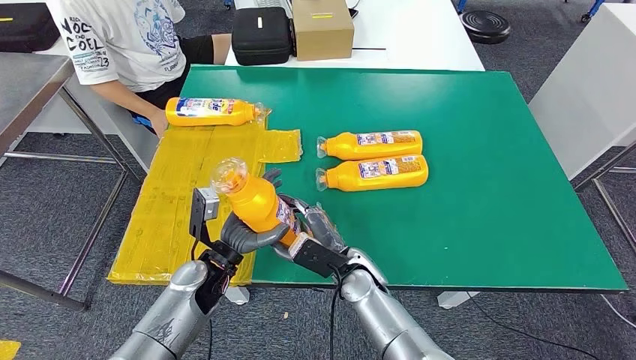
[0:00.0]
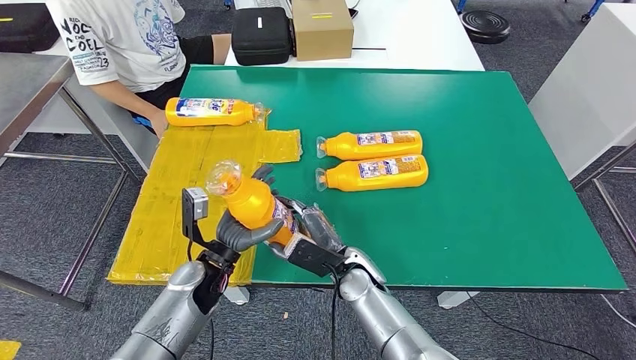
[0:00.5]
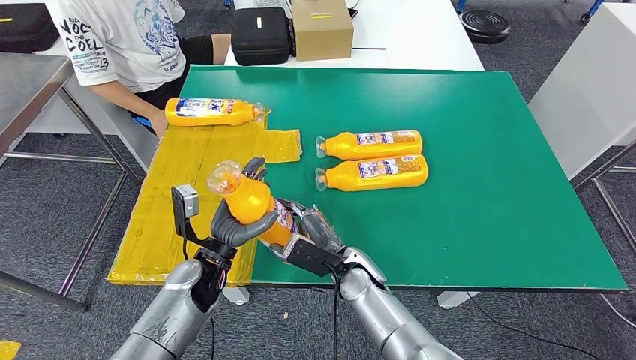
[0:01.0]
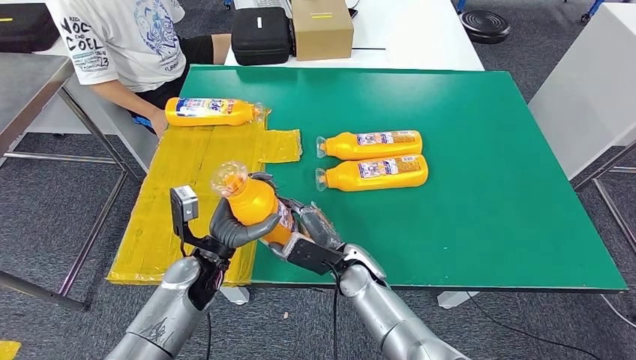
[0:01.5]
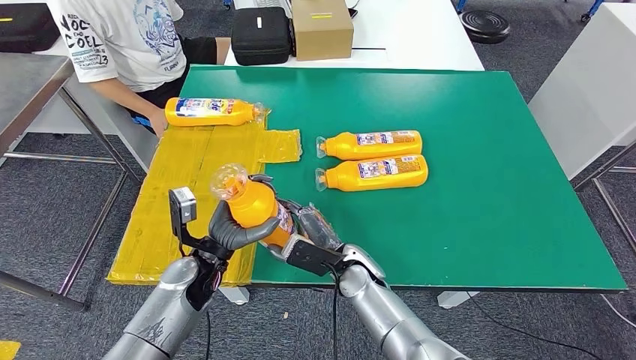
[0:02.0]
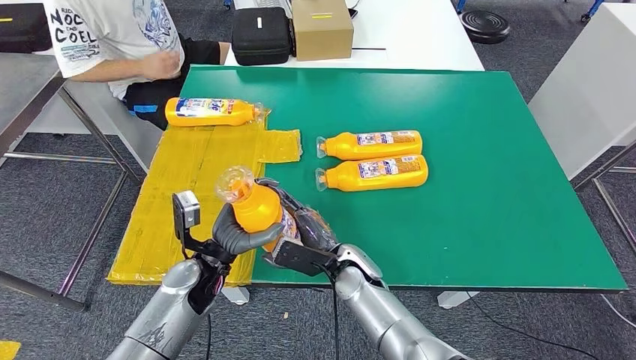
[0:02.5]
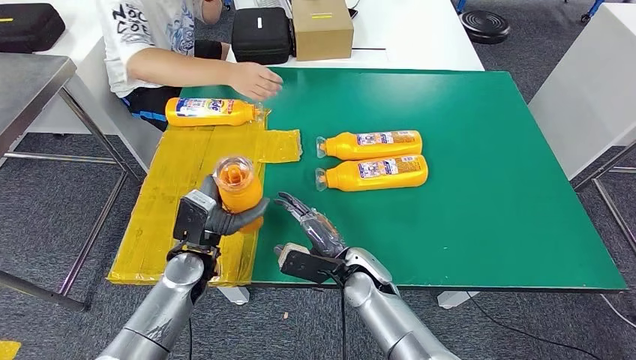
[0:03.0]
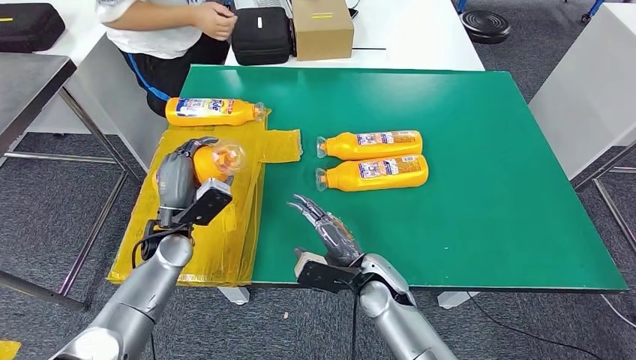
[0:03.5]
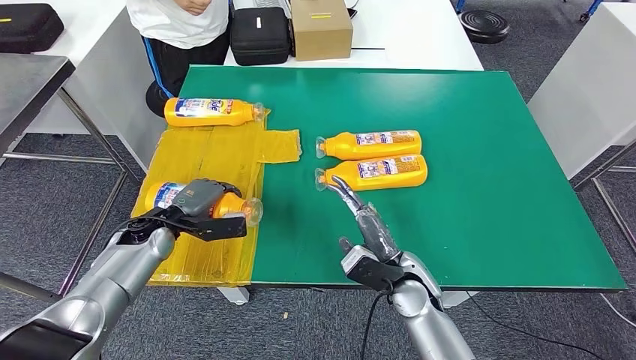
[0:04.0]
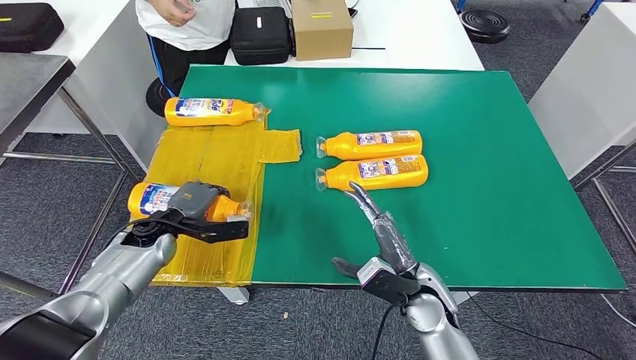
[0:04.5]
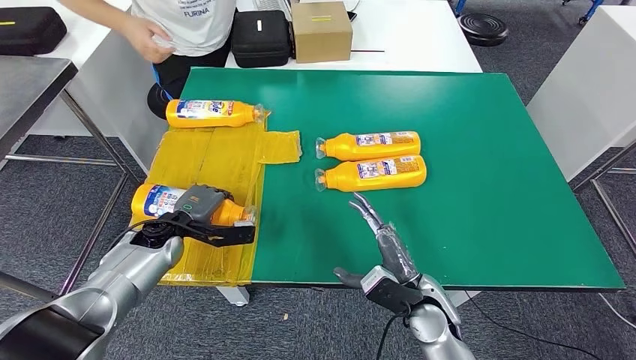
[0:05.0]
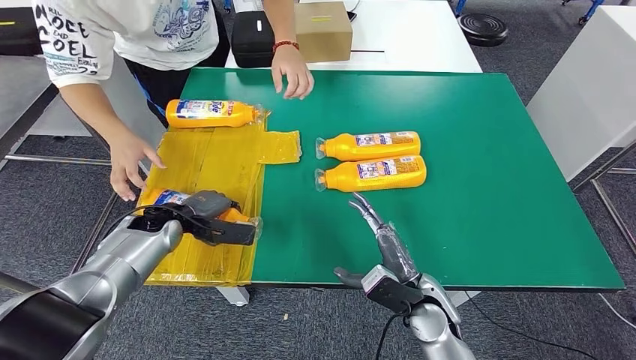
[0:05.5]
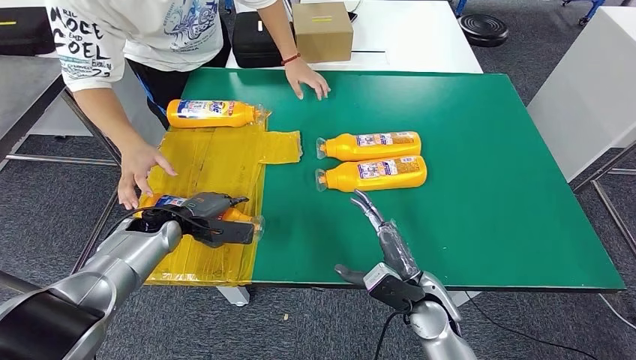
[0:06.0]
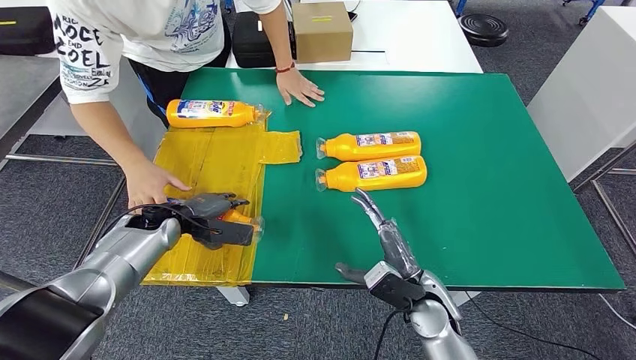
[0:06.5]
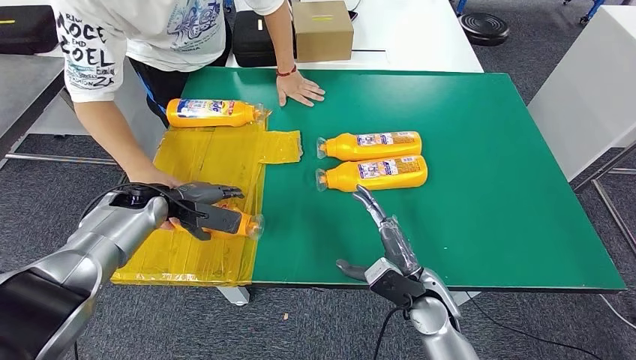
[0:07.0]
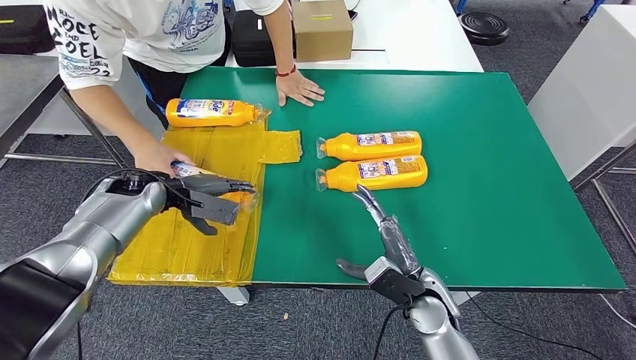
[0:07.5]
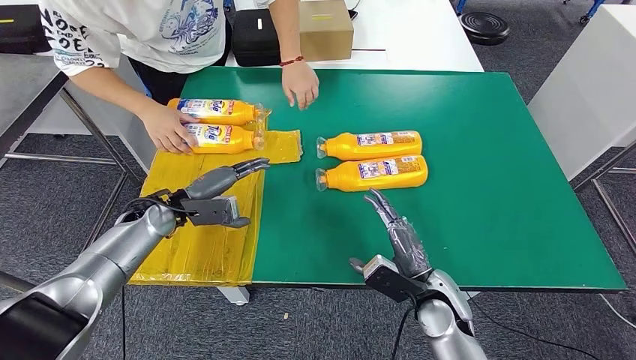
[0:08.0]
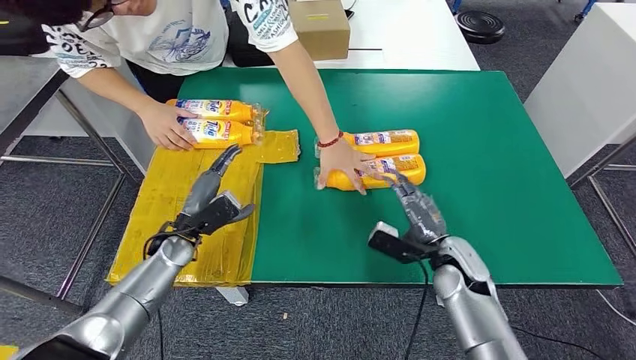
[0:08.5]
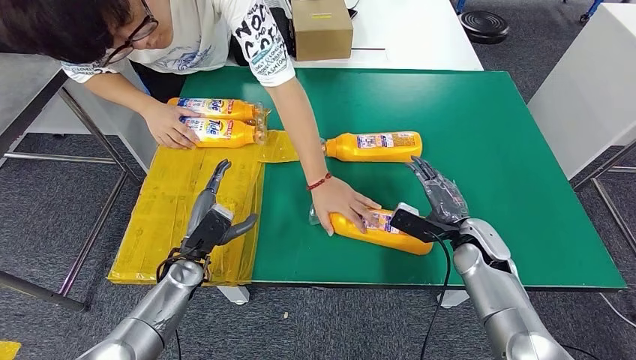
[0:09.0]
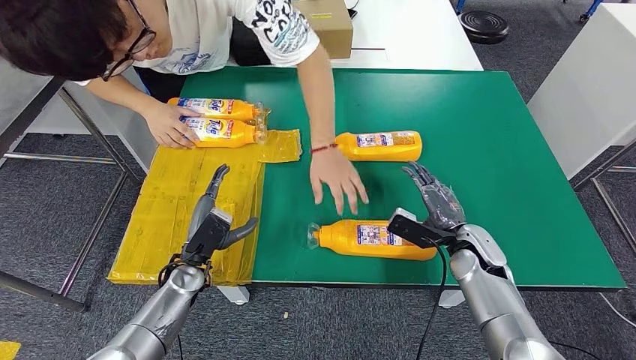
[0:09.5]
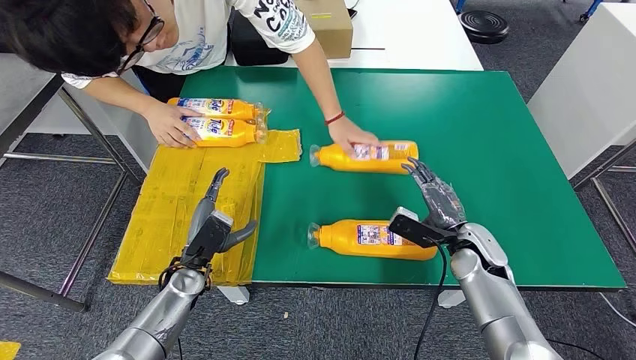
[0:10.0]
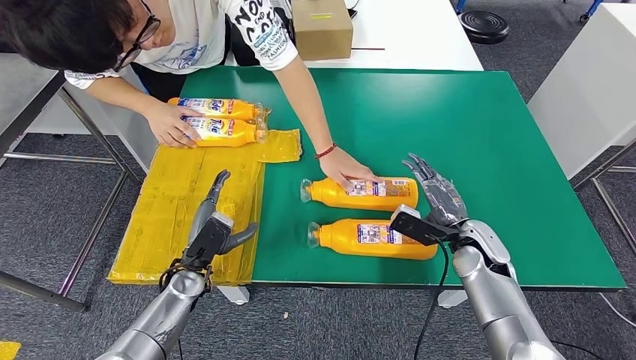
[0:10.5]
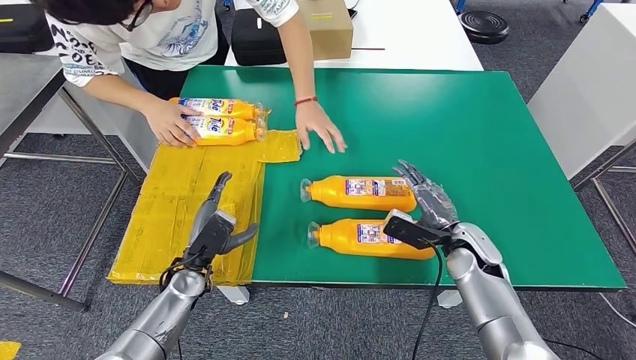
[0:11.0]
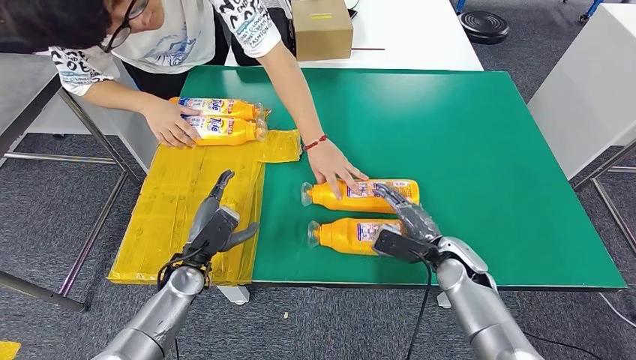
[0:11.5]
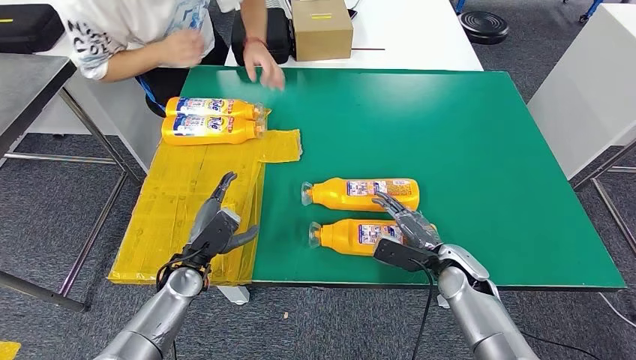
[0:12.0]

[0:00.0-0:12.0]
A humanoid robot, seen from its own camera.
Step, 0:00.0 to 0:07.0: Flip the fast-moving consumer goods bottle to the front side.
0:00.0 to 0:02.0: The hands make only small movements.

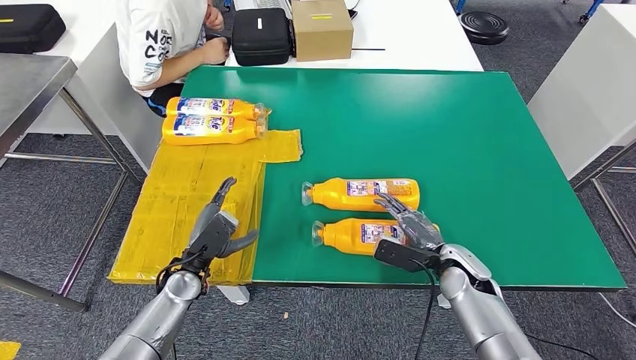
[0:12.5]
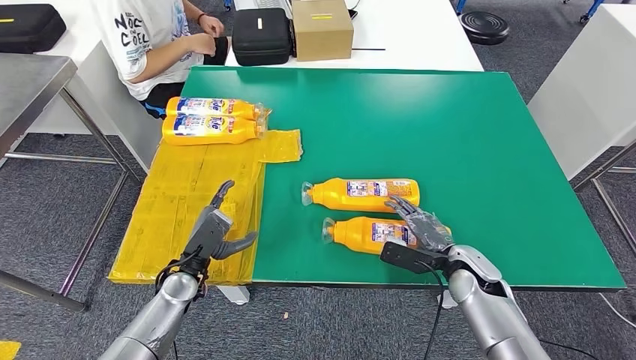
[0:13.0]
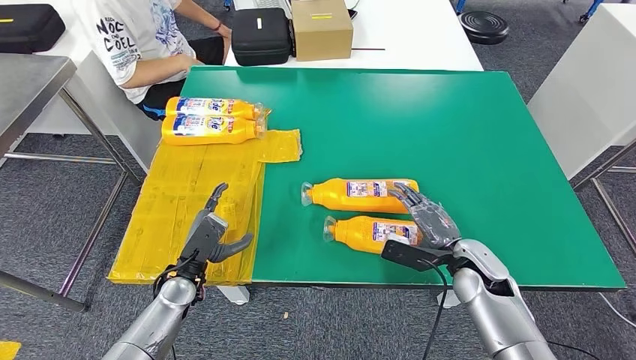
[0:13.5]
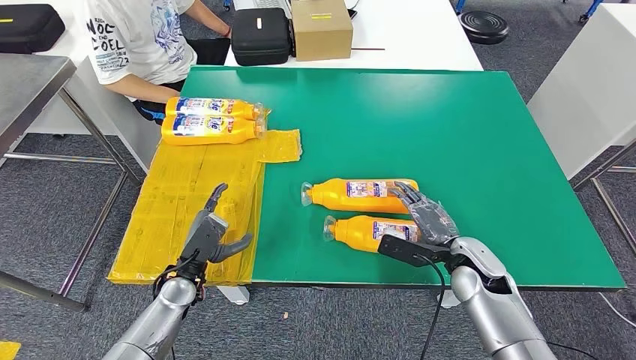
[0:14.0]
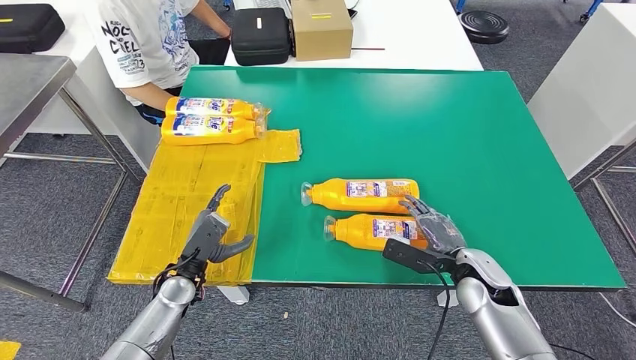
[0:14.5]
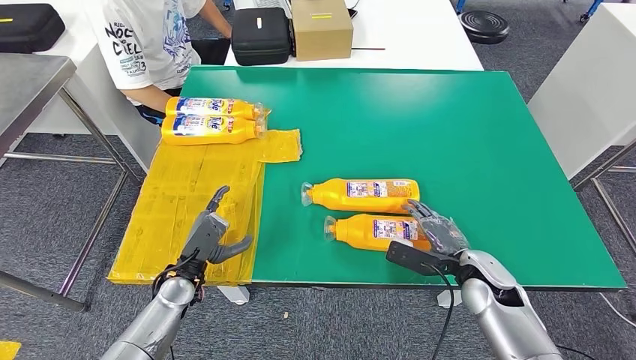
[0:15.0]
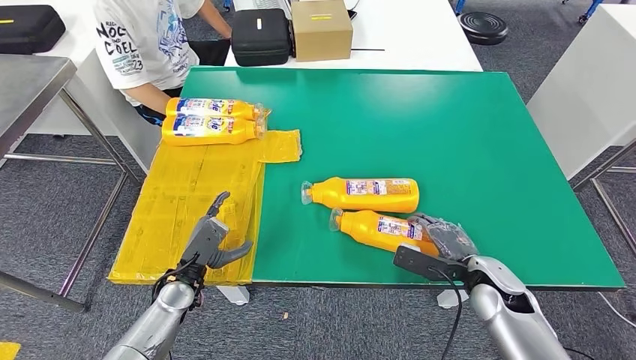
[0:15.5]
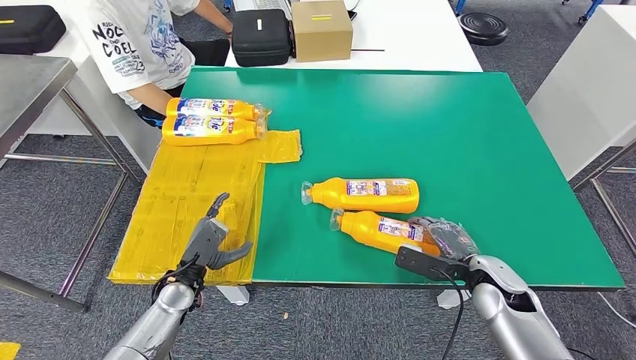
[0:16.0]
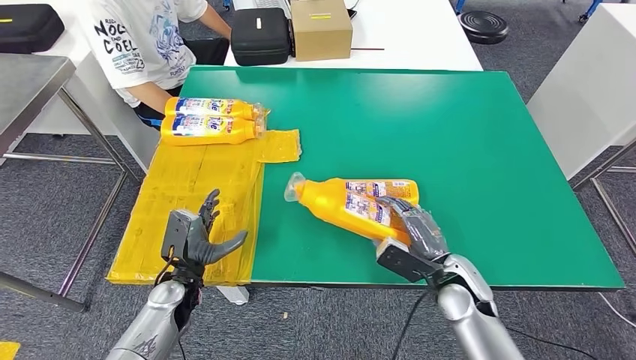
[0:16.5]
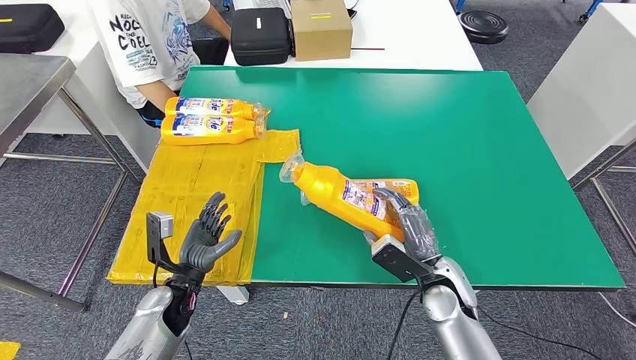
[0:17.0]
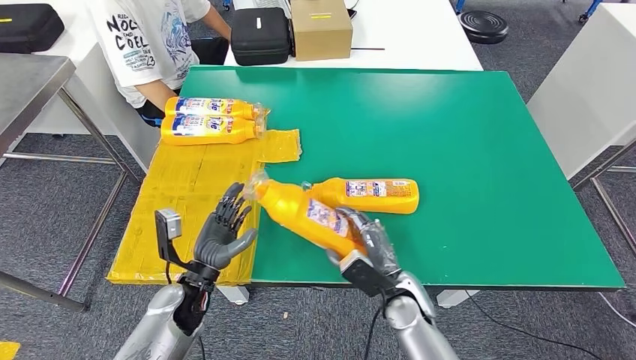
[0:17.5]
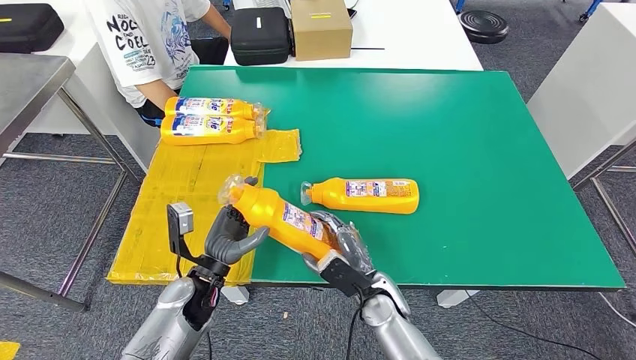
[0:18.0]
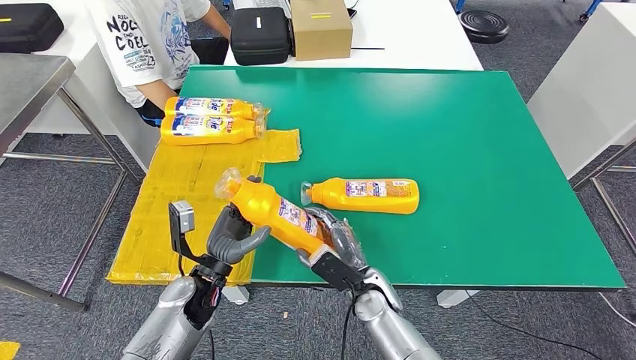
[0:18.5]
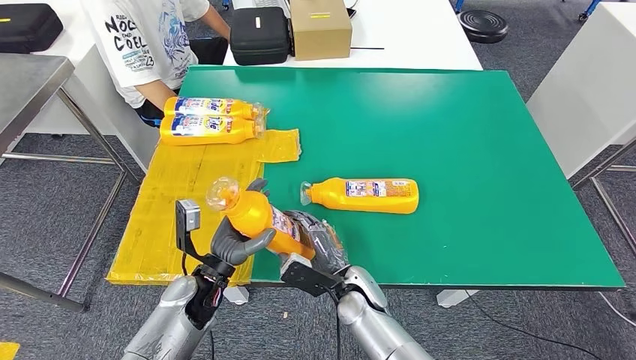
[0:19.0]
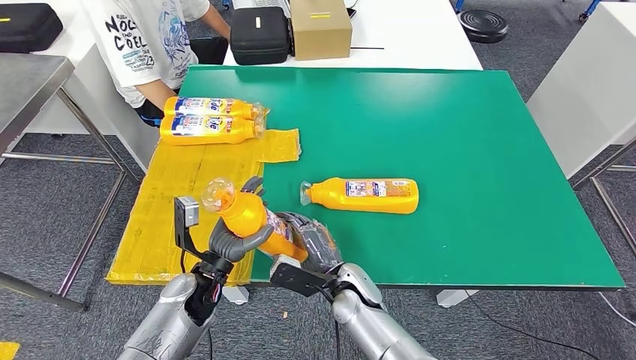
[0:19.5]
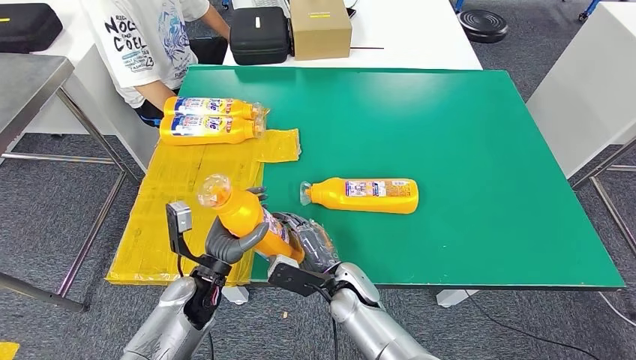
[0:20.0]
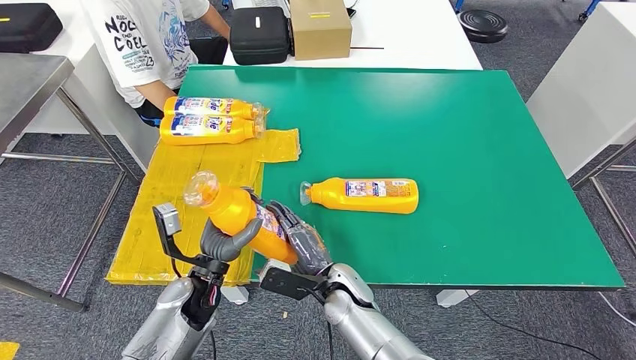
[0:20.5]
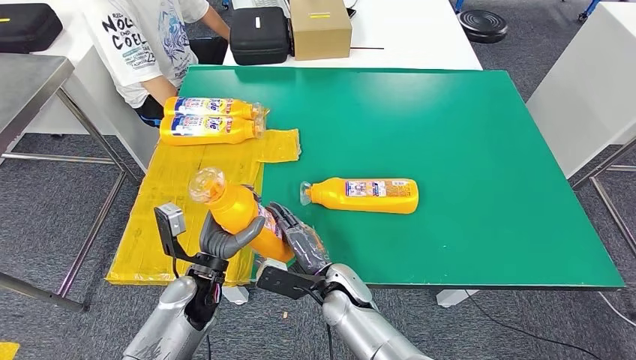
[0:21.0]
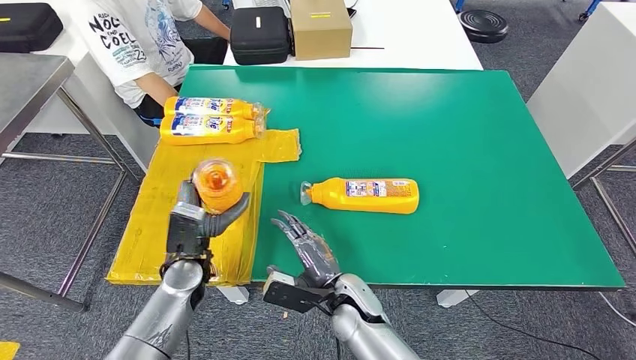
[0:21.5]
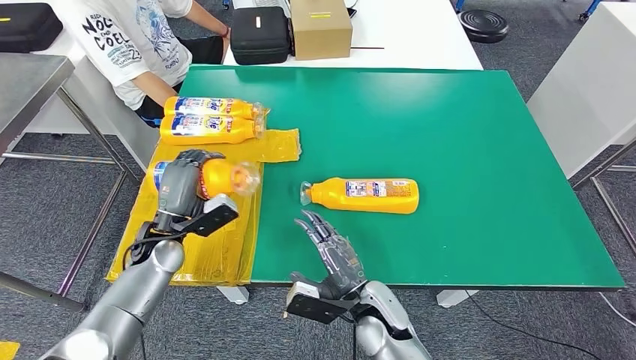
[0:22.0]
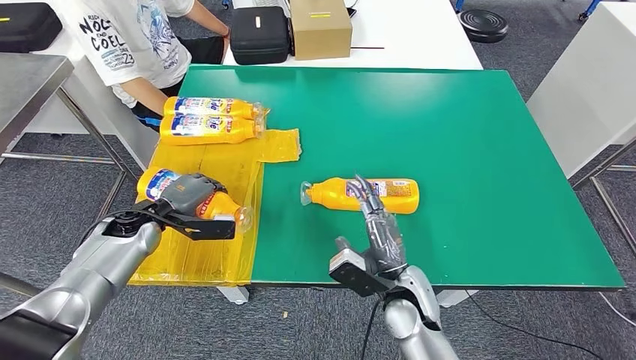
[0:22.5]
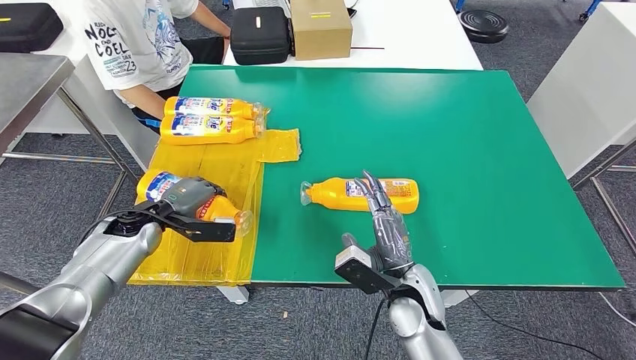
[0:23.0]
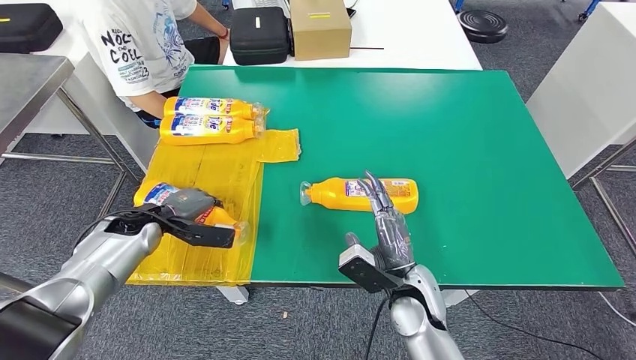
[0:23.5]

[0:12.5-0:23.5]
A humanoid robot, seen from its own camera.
Step, 0:14.5 to 0:16.5: Pick up the fast-moving consumer goods bottle from the table.
0:12.5 to 0:14.5: The hands stay close to where they were, moving slightly.
0:14.5 to 0:16.0: The hands stay close to where they were, moving slightly.
0:16.0 to 0:18.0: The right hand moves to the left, about 20 cm, while the left hand is displaced to the right by about 5 cm.
0:18.0 to 0:20.0: The right hand is displaced to the left by some 5 cm.
0:21.5 to 0:23.5: The right hand goes about 10 cm to the right, while the left hand moves to the left and forward, roughly 15 cm.
